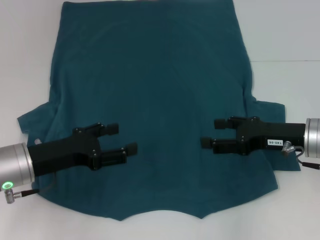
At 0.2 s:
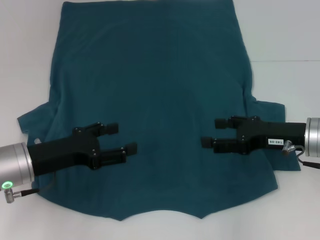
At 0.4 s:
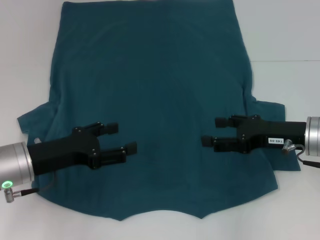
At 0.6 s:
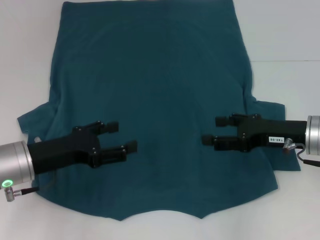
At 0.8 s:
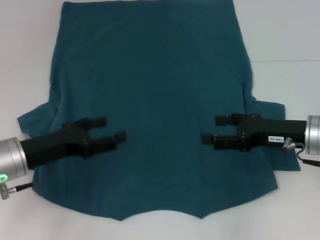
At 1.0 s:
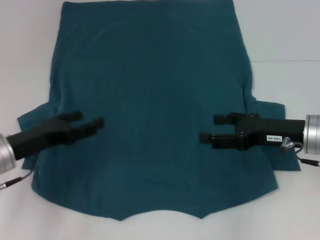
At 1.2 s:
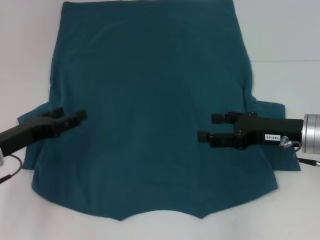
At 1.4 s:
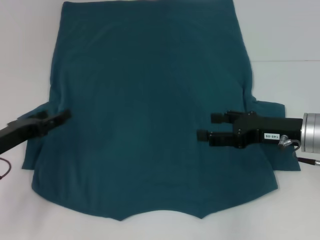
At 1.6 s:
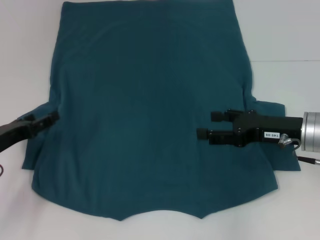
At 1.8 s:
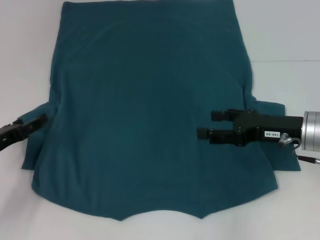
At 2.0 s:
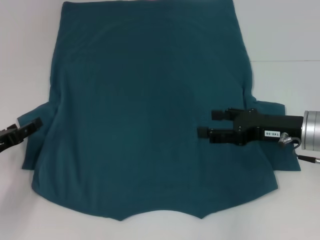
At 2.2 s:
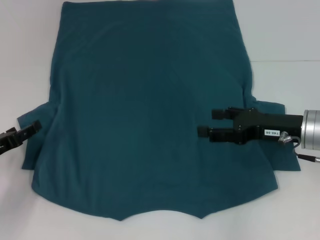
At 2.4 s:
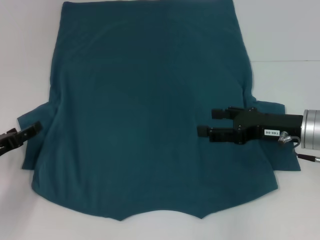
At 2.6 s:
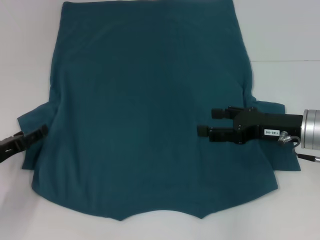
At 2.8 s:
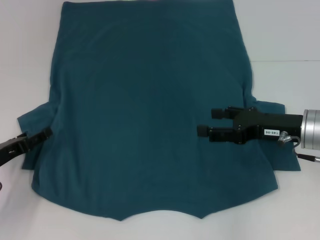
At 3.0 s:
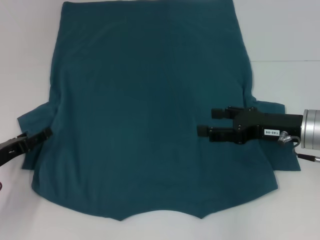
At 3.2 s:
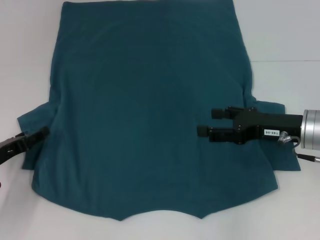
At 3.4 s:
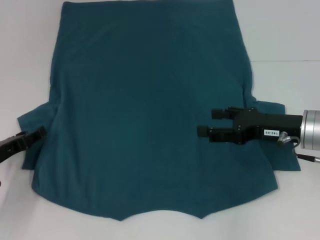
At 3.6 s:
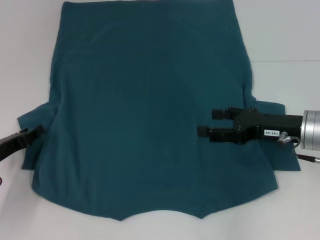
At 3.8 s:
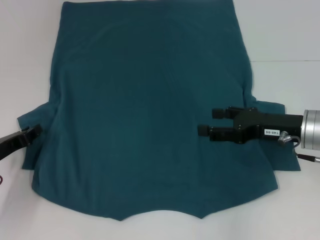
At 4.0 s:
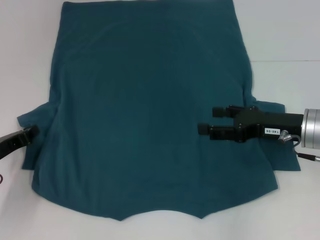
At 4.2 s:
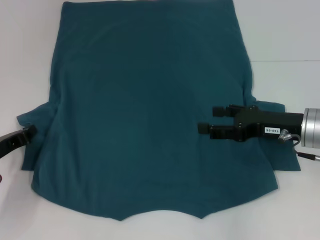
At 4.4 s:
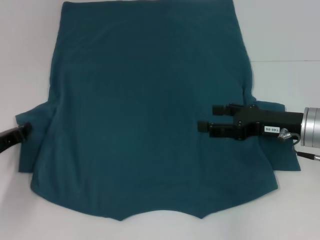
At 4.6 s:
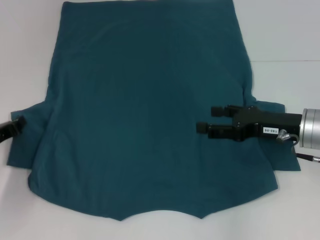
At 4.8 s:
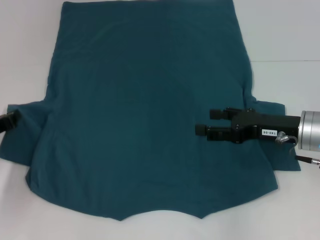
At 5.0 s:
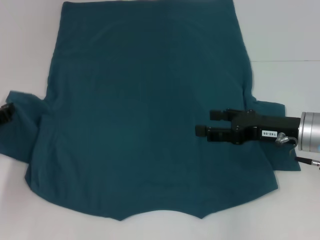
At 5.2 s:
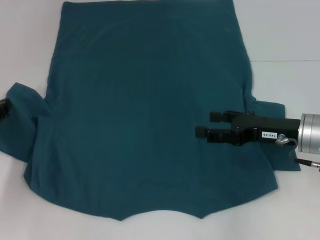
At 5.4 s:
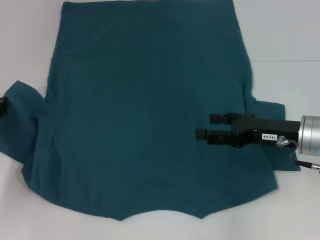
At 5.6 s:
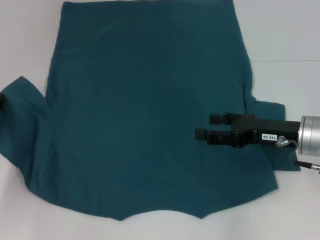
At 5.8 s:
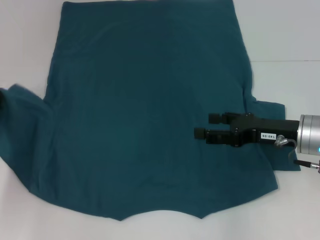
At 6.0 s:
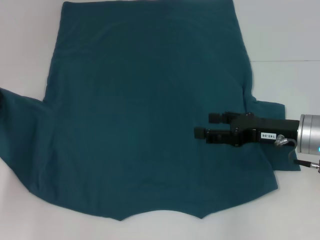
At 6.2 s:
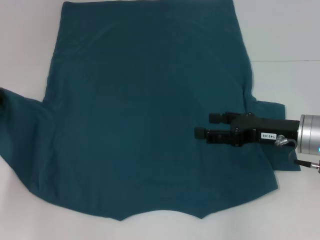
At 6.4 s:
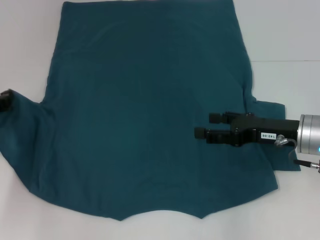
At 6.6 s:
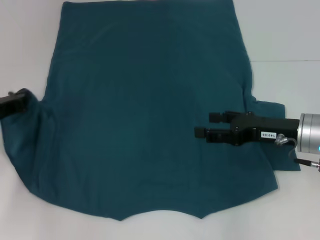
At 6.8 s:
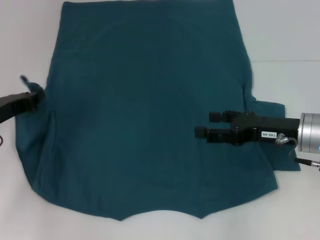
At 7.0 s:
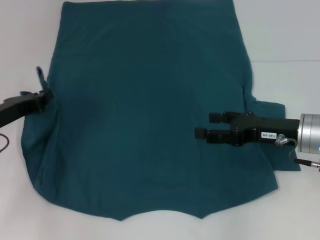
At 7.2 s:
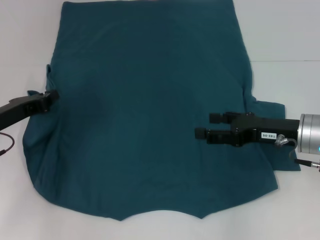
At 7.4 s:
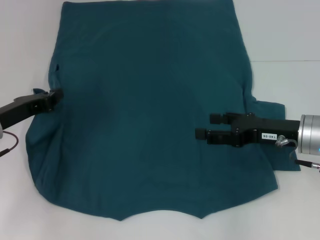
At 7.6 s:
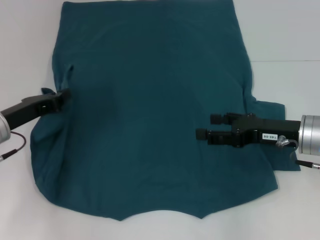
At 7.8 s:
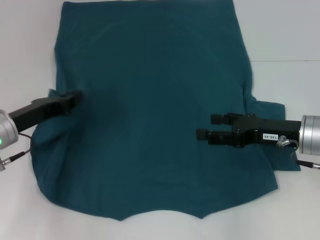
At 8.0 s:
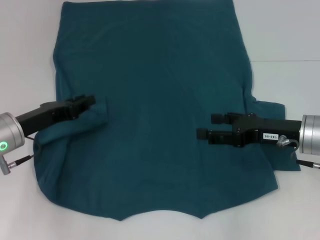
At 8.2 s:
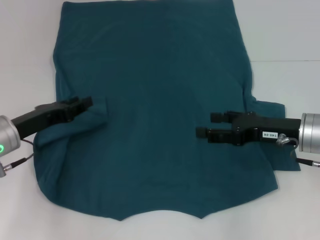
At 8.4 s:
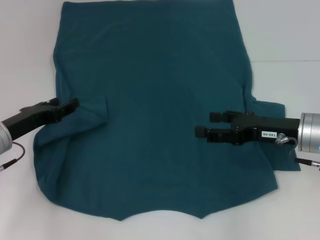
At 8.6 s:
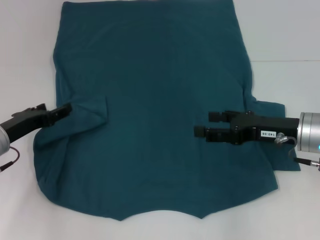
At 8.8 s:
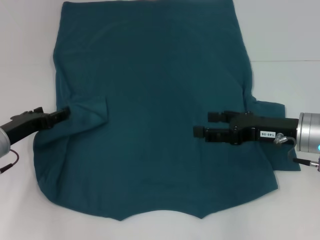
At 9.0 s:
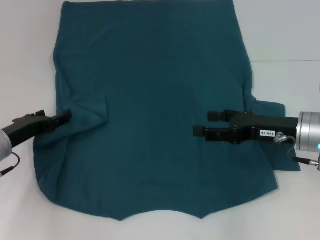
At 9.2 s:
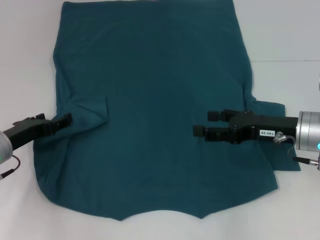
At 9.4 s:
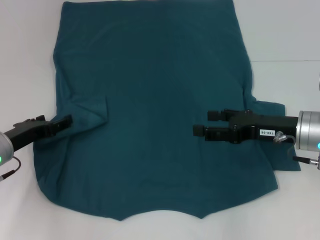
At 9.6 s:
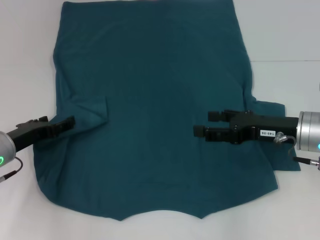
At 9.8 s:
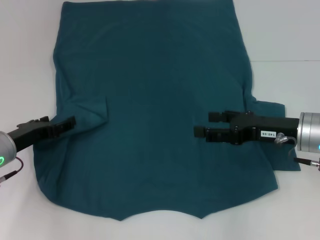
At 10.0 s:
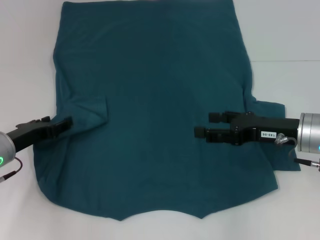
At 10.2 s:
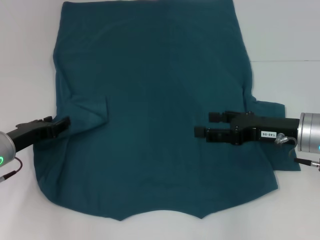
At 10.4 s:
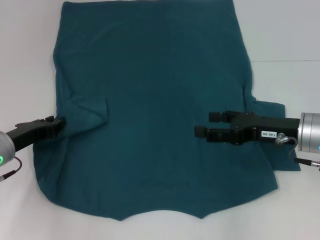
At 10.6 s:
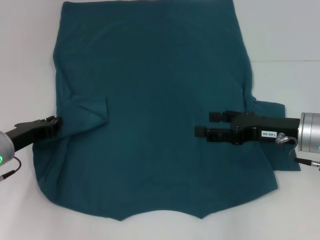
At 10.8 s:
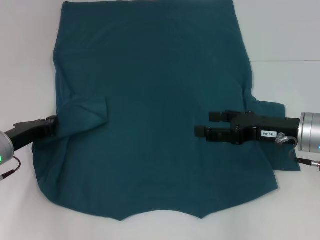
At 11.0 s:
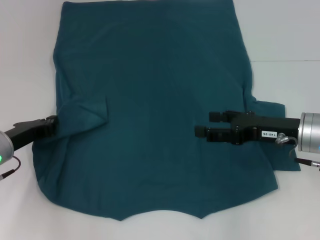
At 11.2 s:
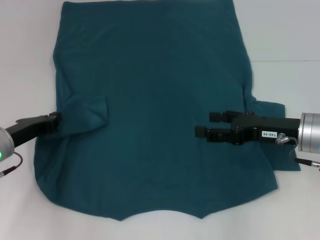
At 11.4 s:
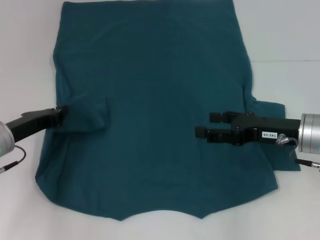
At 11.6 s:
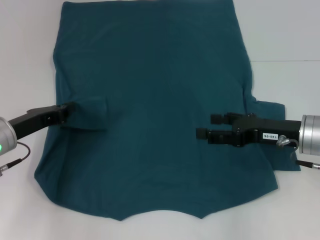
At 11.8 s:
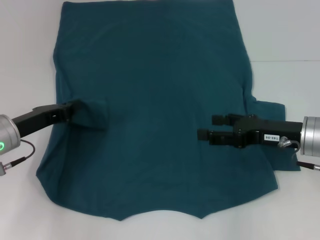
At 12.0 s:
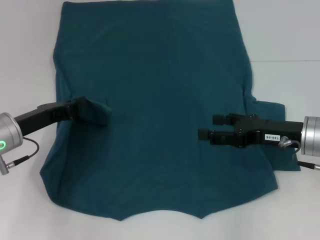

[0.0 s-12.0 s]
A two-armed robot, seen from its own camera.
0.0 to 1.6 s: The left gripper travels to the left by roughly 5 cm.
1.6 to 3.0 s: There are only small adjustments of the grippers.
3.0 to 4.4 s: The left gripper closes its fingers.
4.4 to 6.0 s: The left gripper shifts by approximately 5 cm.
6.0 to 7.6 s: The left gripper is displaced to the right by approximately 5 cm.
7.6 to 9.0 s: The left gripper opens up.
9.0 to 10.4 s: The left gripper closes its fingers.
10.4 to 12.0 s: The left gripper closes.

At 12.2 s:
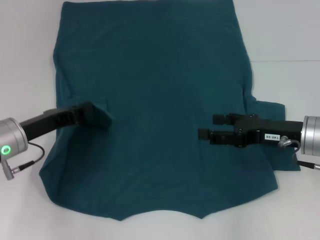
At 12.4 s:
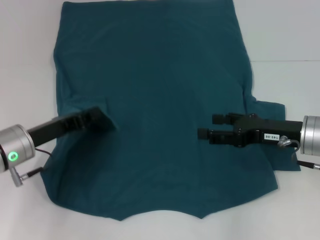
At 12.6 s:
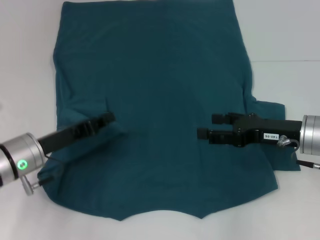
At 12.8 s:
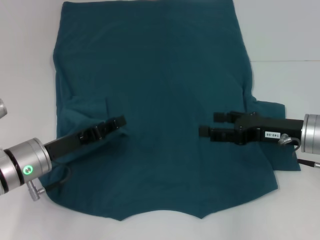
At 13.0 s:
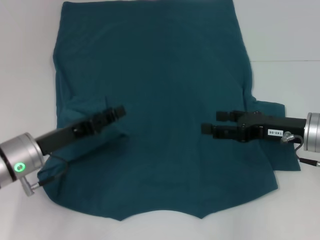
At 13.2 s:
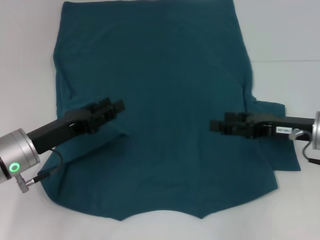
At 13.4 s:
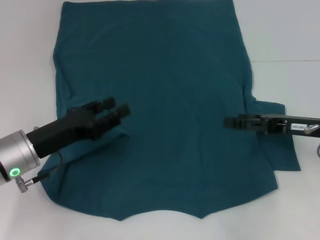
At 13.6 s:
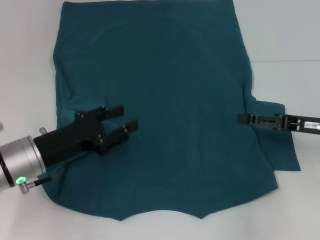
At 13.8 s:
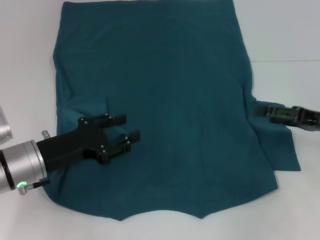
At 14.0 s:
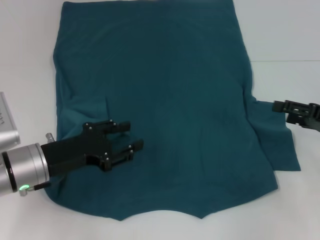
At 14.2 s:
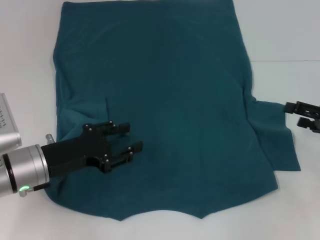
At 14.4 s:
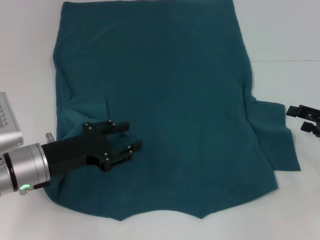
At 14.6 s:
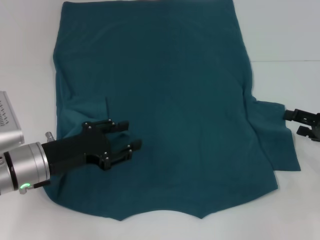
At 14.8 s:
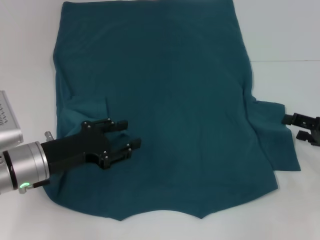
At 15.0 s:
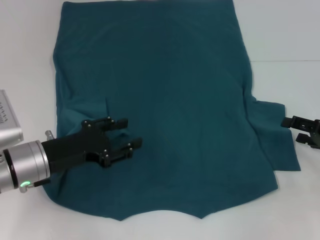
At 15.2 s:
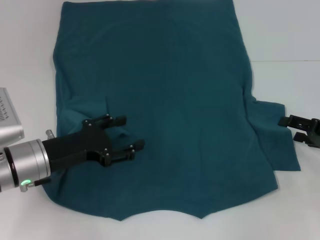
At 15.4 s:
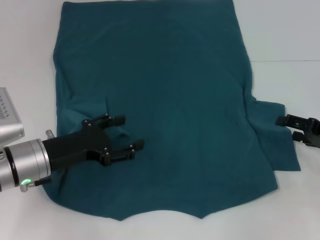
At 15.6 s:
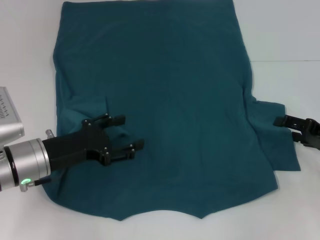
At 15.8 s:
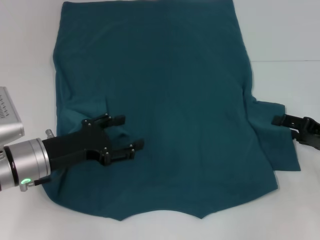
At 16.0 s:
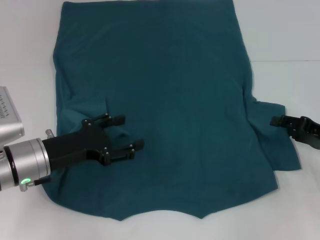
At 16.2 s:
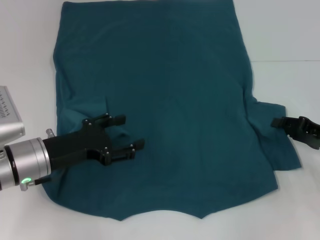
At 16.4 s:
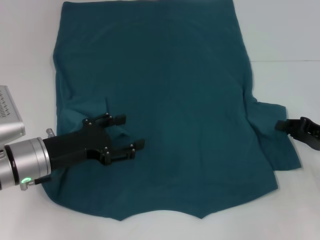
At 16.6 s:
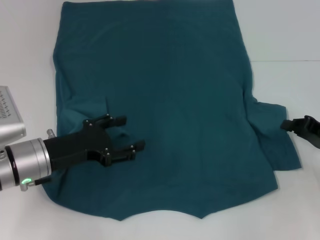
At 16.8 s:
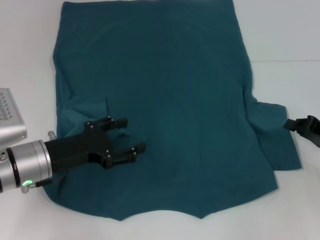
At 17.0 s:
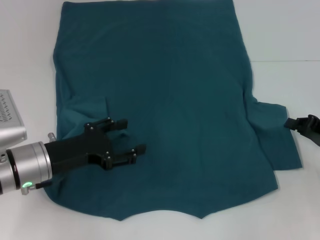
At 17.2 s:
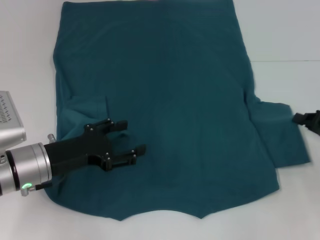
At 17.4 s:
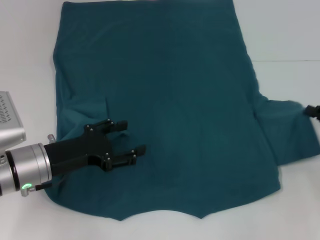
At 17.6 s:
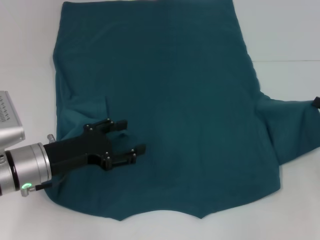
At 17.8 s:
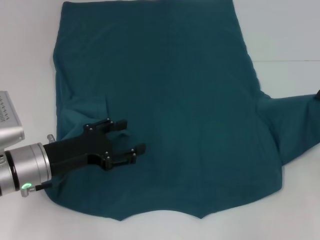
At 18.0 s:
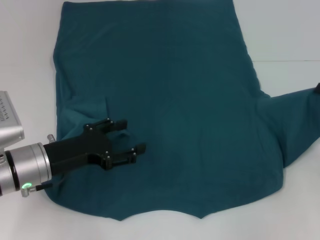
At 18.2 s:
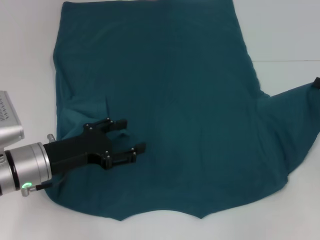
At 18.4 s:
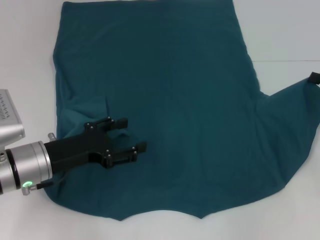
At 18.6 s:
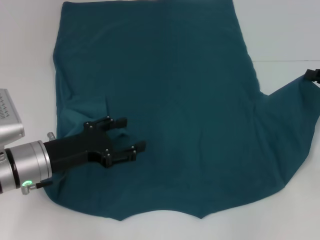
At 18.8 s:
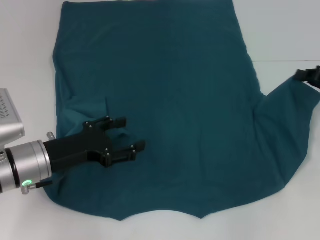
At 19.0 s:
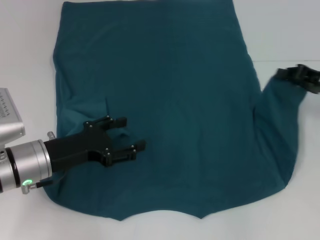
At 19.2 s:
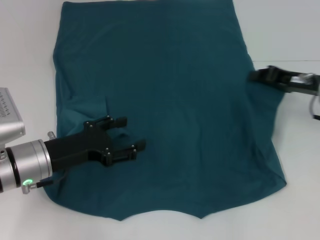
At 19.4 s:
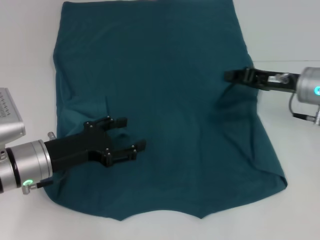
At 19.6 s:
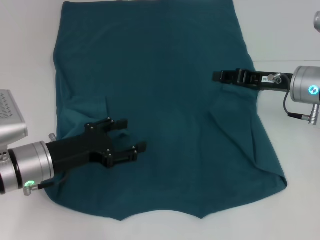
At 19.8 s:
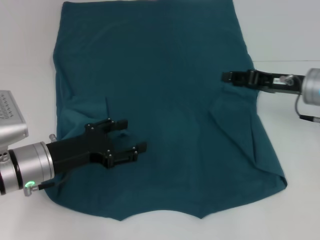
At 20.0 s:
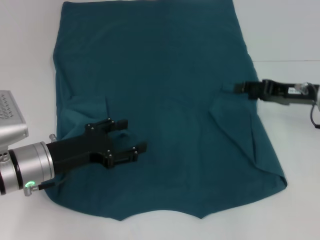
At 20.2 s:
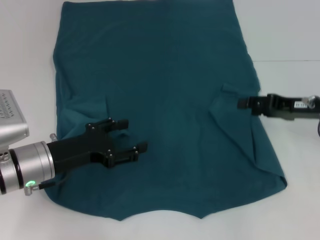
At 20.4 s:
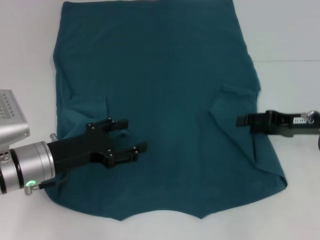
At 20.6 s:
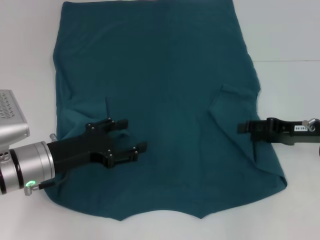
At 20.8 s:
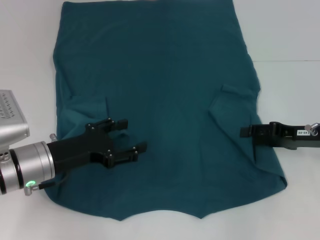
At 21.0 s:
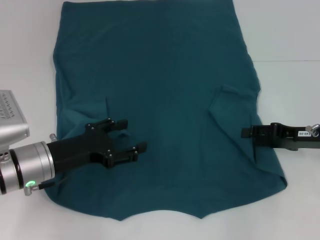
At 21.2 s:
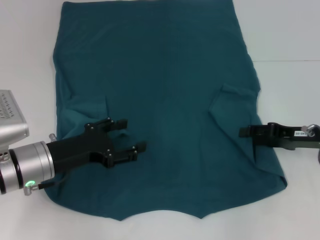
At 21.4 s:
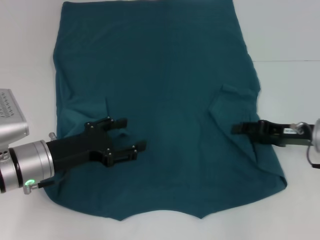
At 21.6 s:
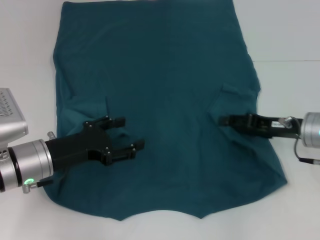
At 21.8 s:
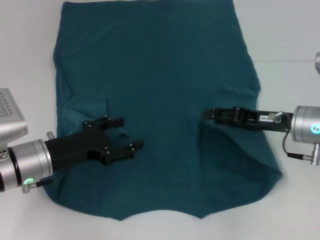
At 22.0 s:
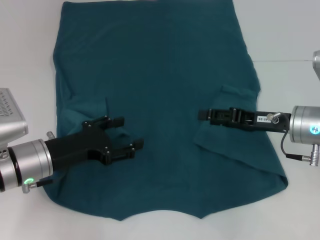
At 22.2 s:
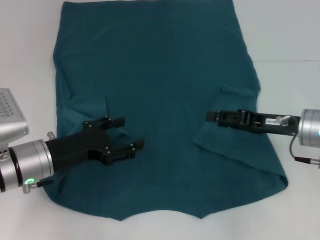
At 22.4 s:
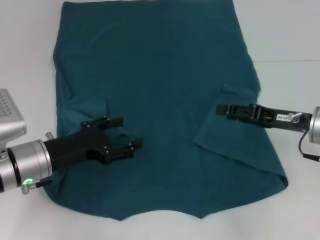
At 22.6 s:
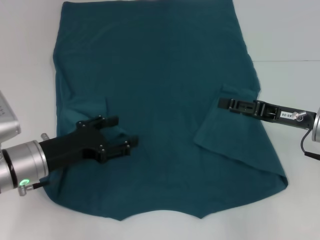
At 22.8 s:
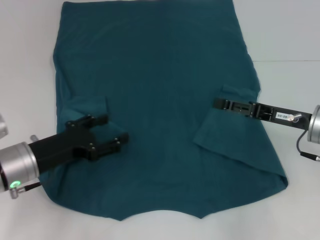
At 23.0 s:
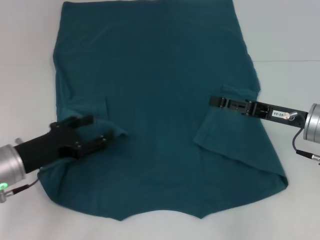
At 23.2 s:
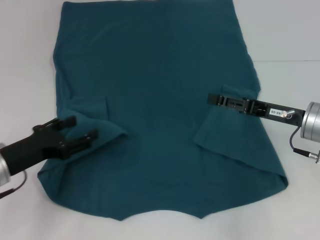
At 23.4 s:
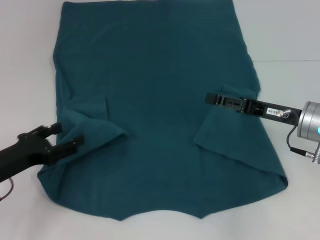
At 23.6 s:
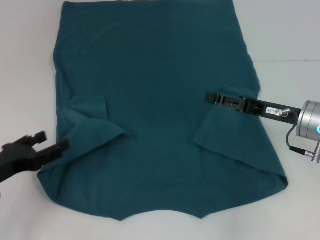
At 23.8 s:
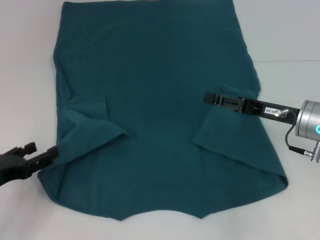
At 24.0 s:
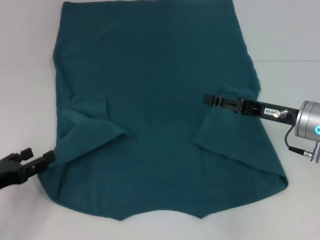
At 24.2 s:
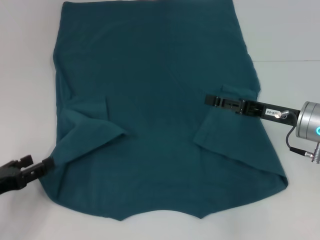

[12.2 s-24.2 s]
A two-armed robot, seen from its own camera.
Step, 13.2 to 22.2 s: Fold the bottom right sleeve to the right.
12.2 to 13.8 s: The right gripper heads to the right, covering approximately 10 cm, while the left gripper opens up.
13.8 to 15.2 s: The grippers stay close to where they were, moving slightly.
15.2 to 16.6 s: The right gripper closes.
16.6 to 18.2 s: The right gripper ends up approximately 5 cm from where it was.
18.2 to 19.8 s: The right gripper heads to the left, covering about 10 cm, and opens.
19.8 to 21.2 s: The right gripper is displaced backward by some 5 cm.
22.6 to 24.2 s: The left gripper goes some 15 cm to the left and backward.
